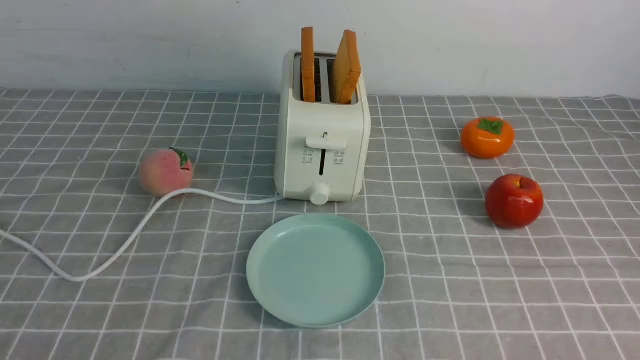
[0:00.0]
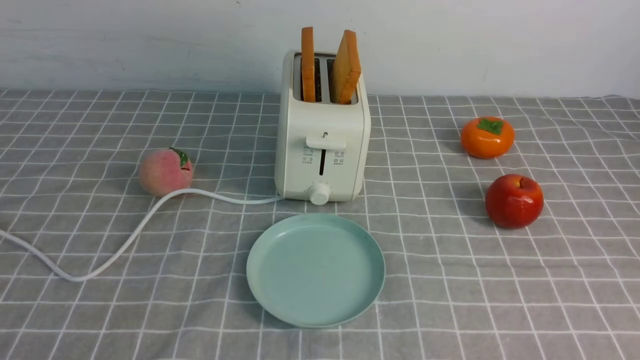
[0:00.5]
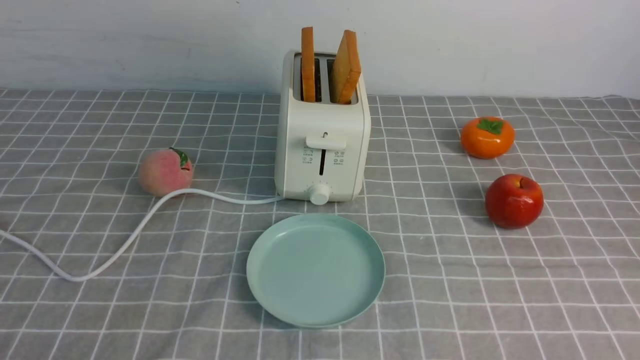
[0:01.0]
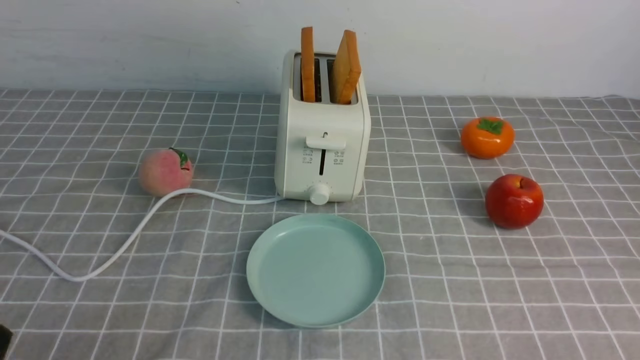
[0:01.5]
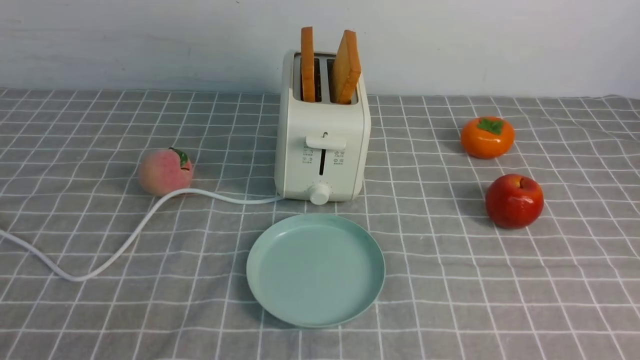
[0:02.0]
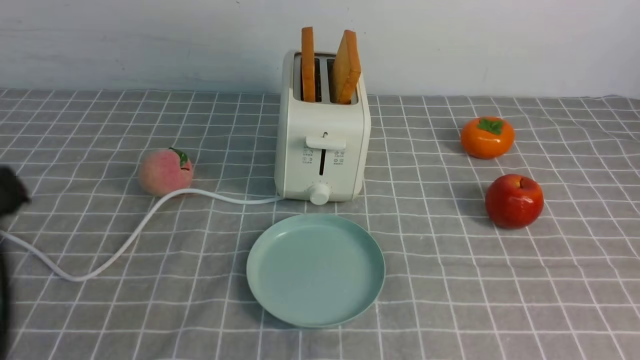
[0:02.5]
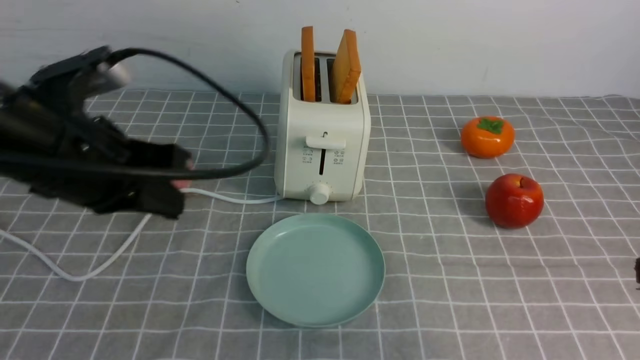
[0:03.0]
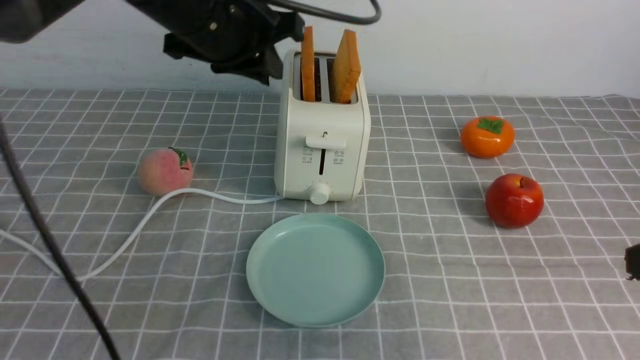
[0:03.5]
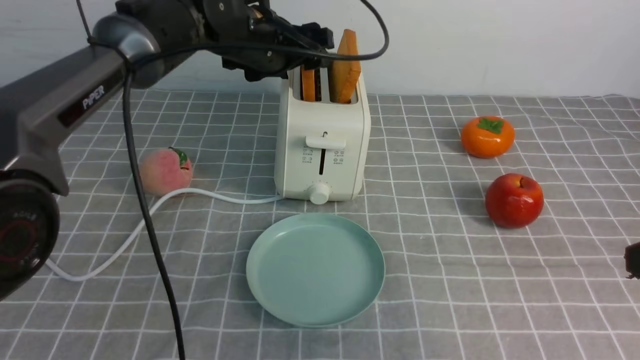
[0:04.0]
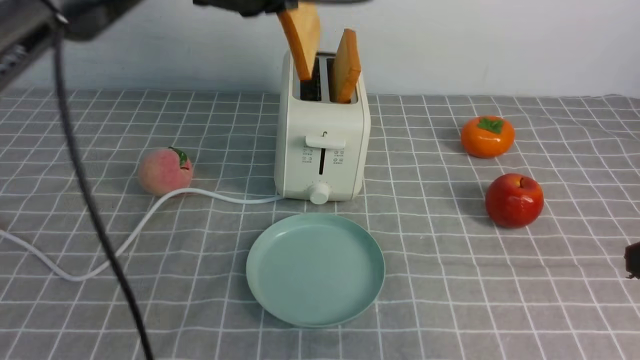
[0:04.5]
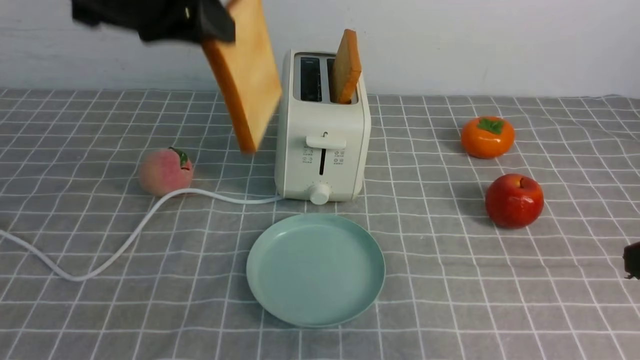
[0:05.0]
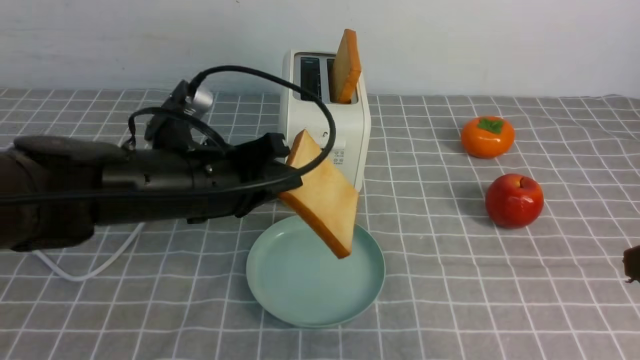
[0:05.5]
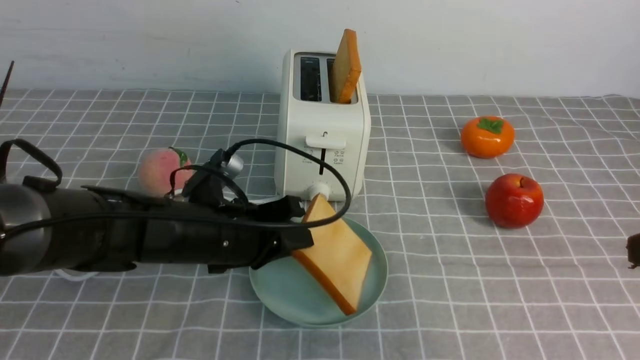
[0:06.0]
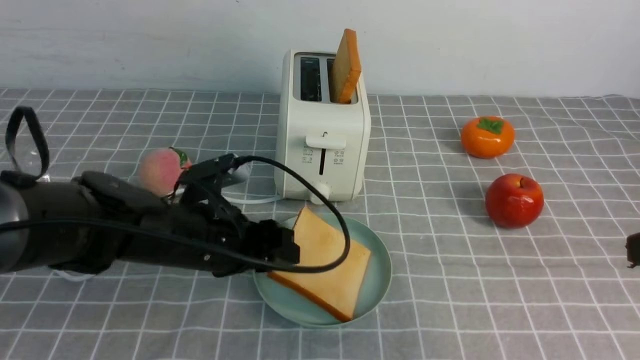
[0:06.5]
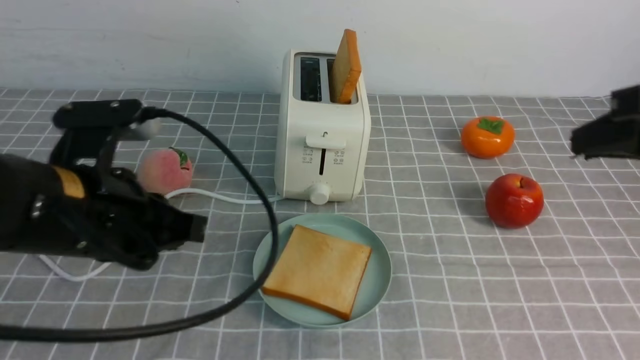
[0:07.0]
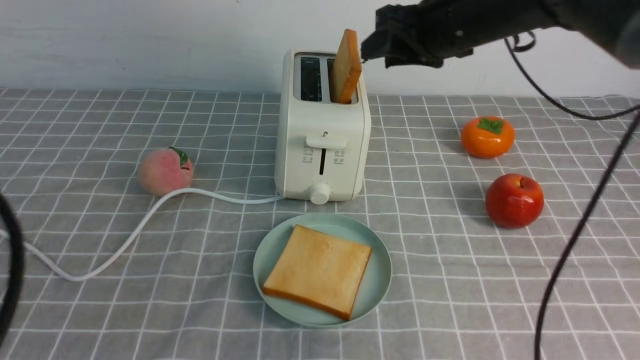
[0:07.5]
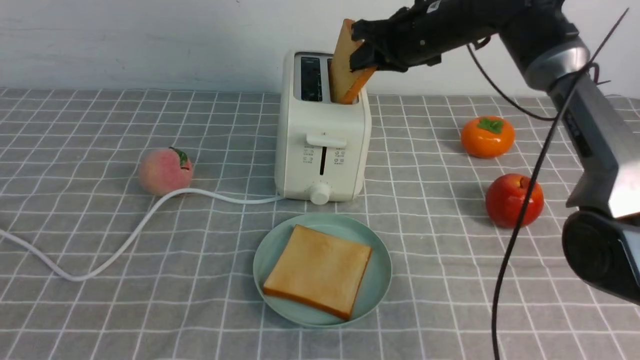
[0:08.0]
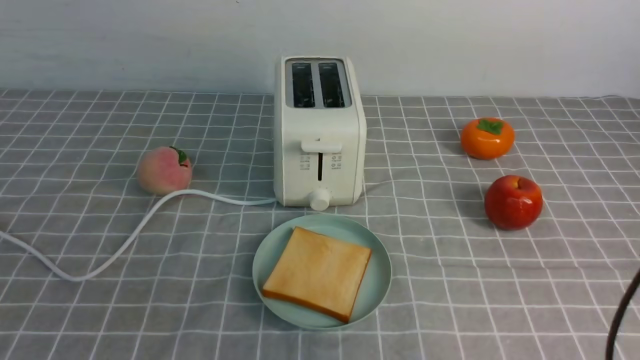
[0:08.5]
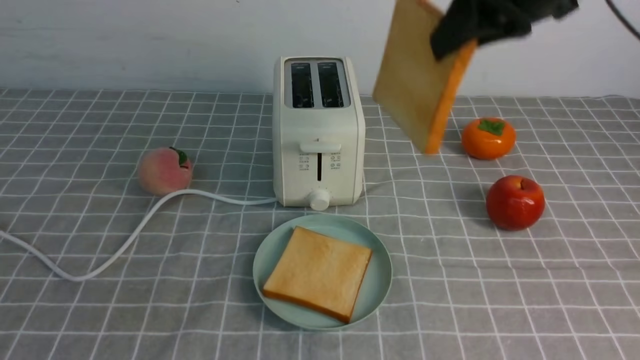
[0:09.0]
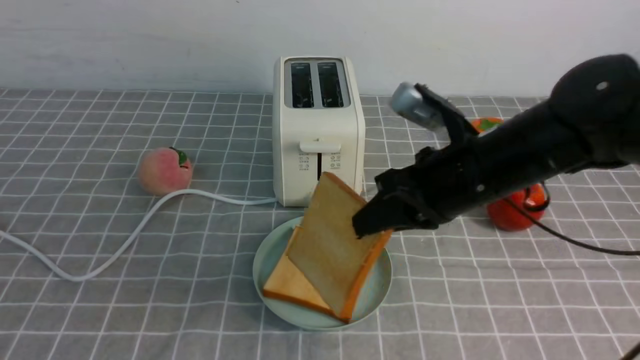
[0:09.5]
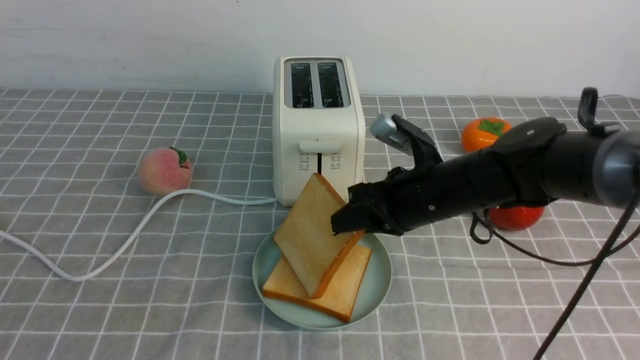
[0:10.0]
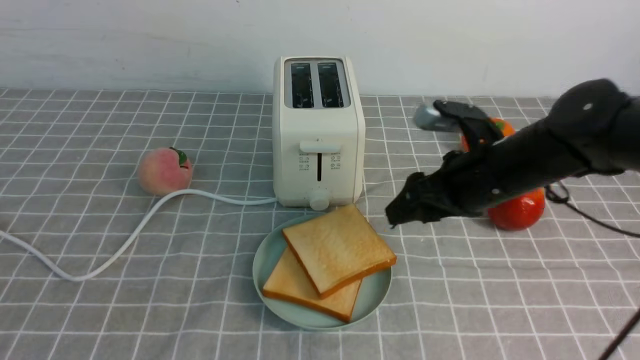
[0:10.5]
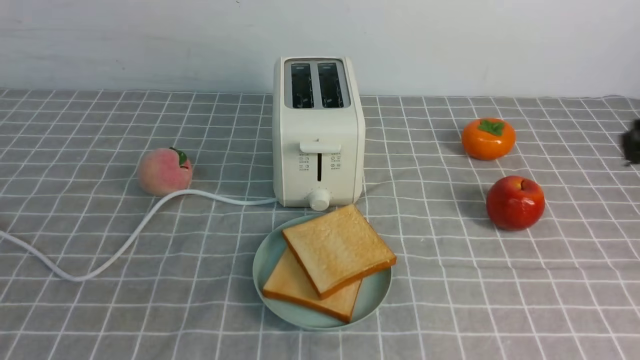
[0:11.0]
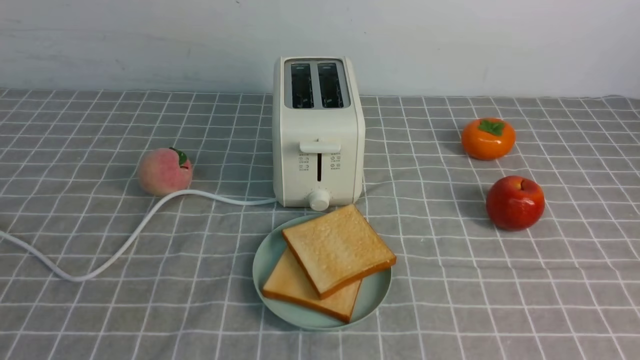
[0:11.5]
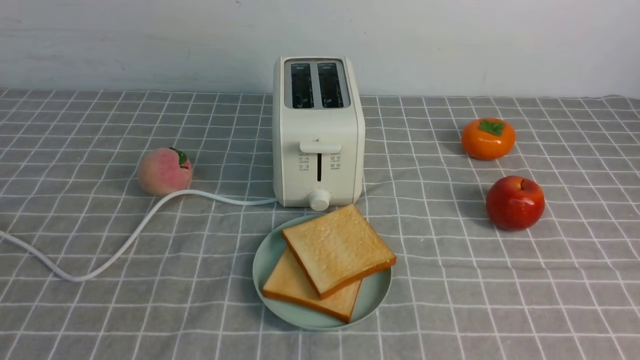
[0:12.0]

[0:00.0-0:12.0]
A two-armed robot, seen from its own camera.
Task of the whole recording: take toasted bread from bread machine on grey coffee table place on plate.
Step, 0:00.0 to 0:04.5: use the left arm to take out a slice of bread.
Step, 0:05.0 to 0:06.5: use the left arm to put a slice of bread into the empty plate.
Step, 0:07.0 to 0:08.0: use the right arm to take out a slice of bread.
Step, 0:08.5 to 0:10.0: use the right arm to put a slice of bread into the plate.
0:02.0 to 0:04.0: The right gripper travels upward and forward by some 15 cm, and closes up, while the left gripper is displaced forward and to the right by about 50 cm, and opens up.
0:04.0 to 0:06.0: The left gripper travels backward and downward by roughly 20 cm, and closes up.
0:06.0 to 0:08.0: The right gripper moves forward and to the left, roughly 40 cm, and opens; the left gripper goes some 35 cm backward, upward and to the left, and opens and closes again.
0:08.0 to 0:10.0: The right gripper heads backward and downward, covering about 20 cm.
0:10.0 to 0:12.0: The right gripper travels backward and to the right by about 35 cm, and opens, then closes once more.

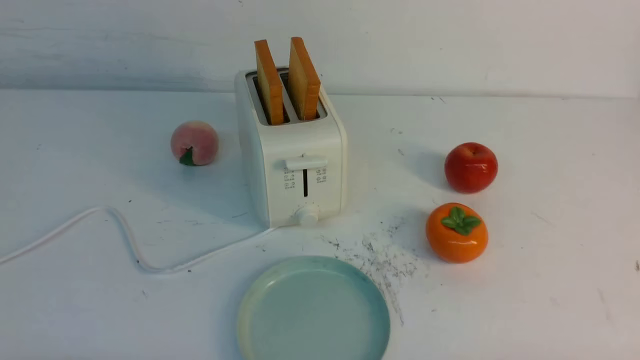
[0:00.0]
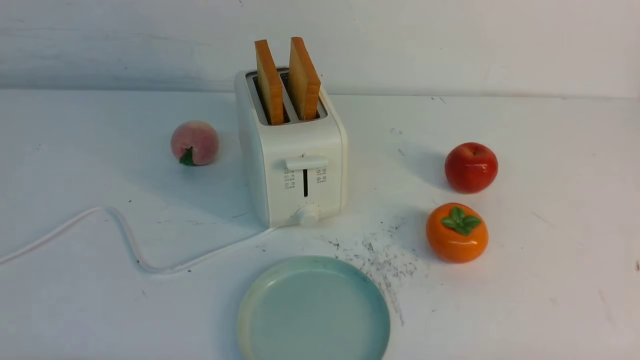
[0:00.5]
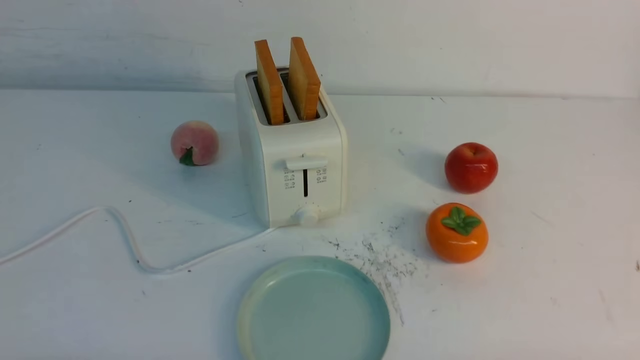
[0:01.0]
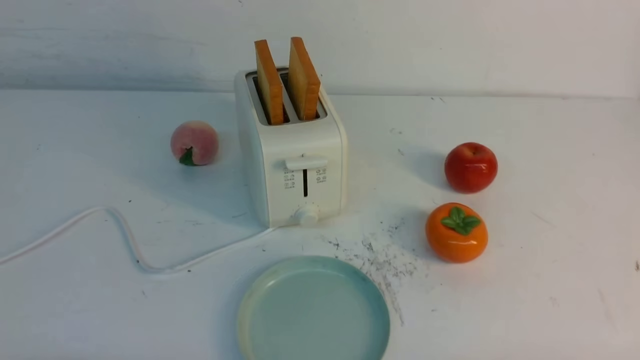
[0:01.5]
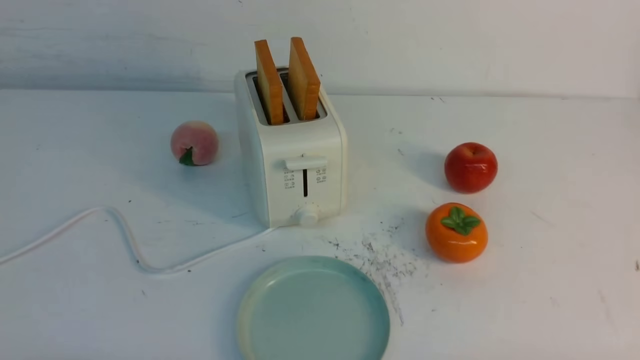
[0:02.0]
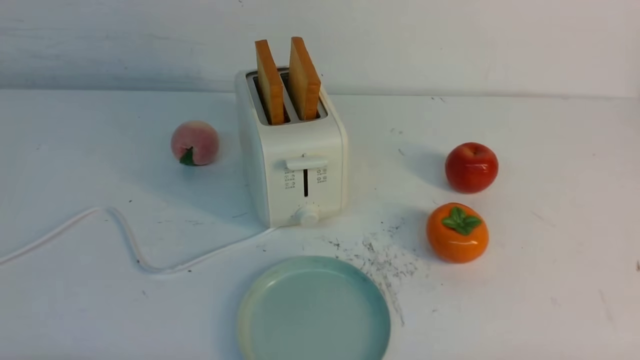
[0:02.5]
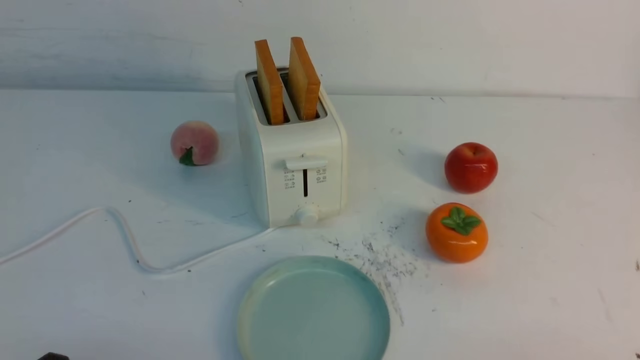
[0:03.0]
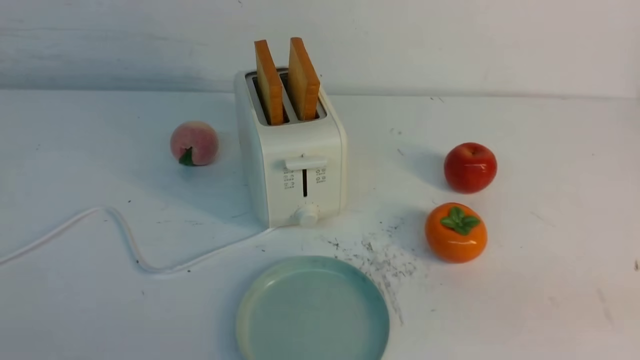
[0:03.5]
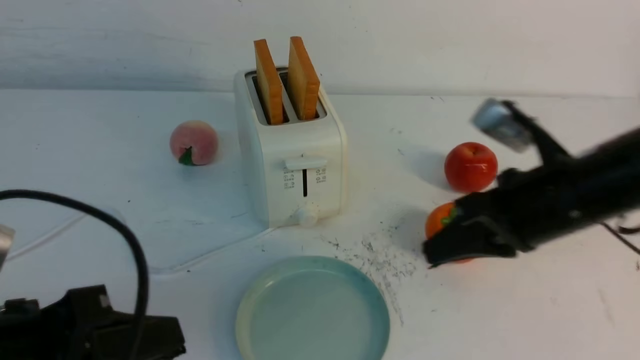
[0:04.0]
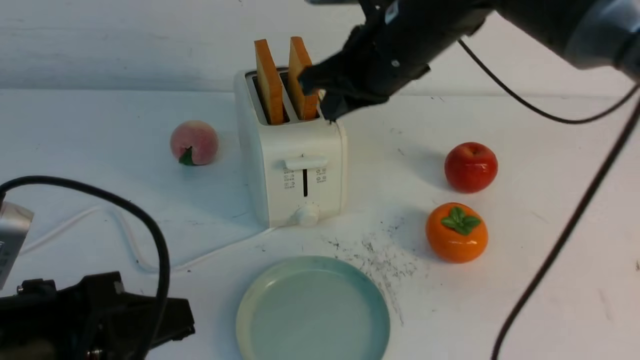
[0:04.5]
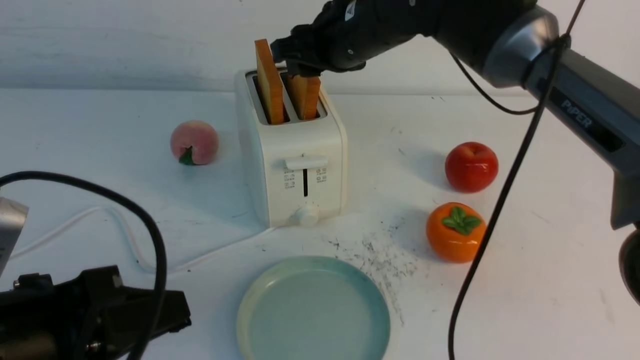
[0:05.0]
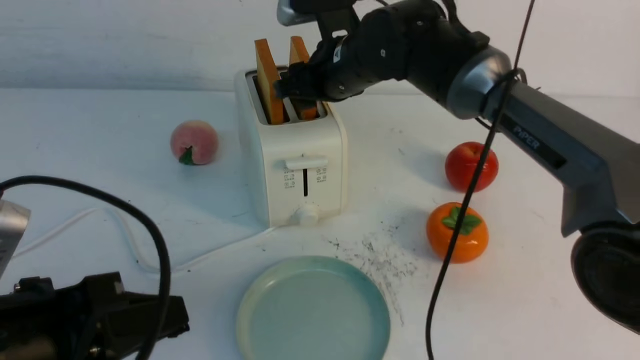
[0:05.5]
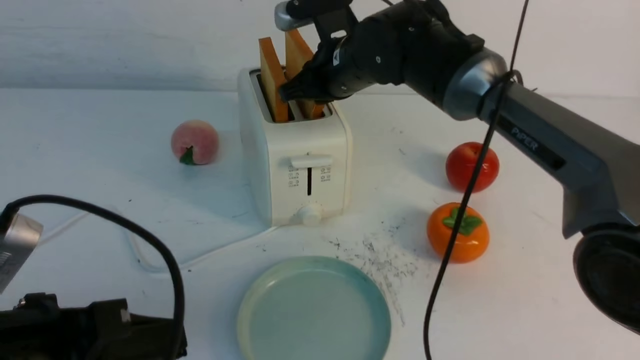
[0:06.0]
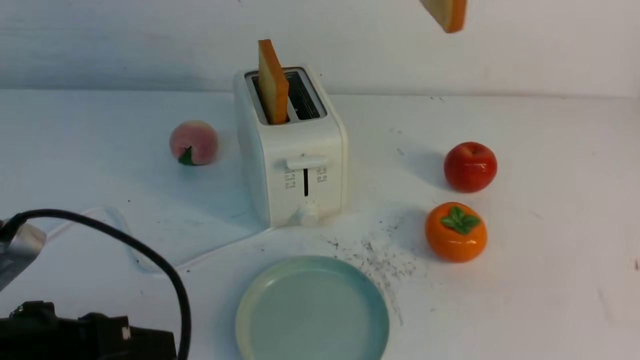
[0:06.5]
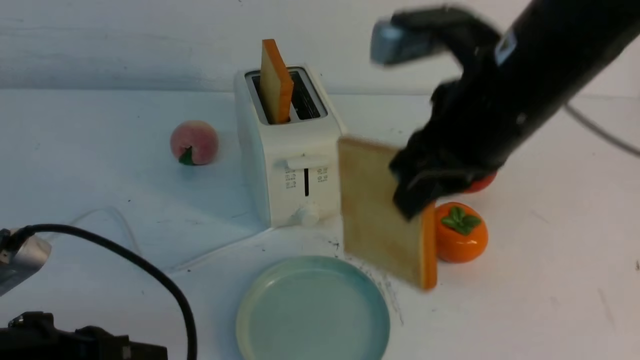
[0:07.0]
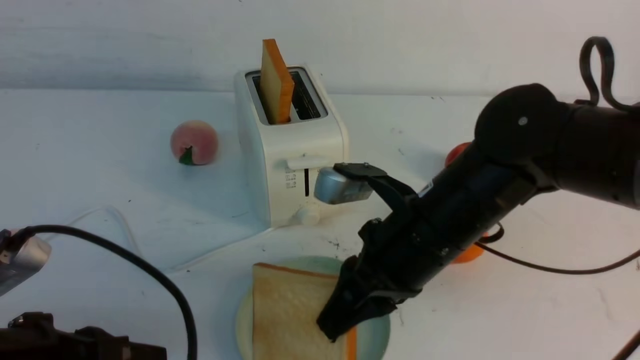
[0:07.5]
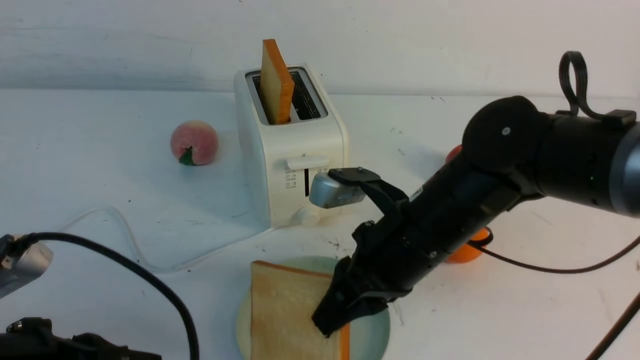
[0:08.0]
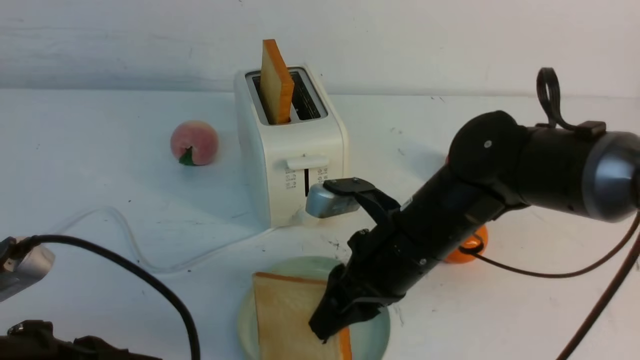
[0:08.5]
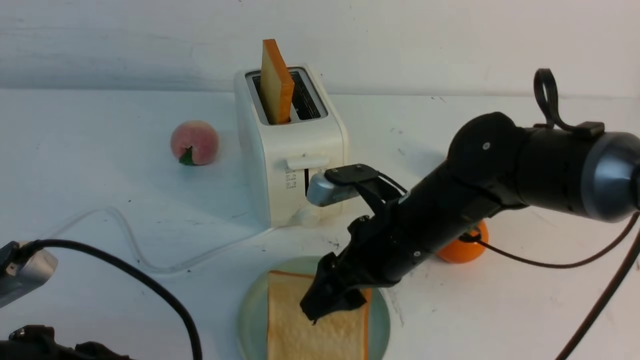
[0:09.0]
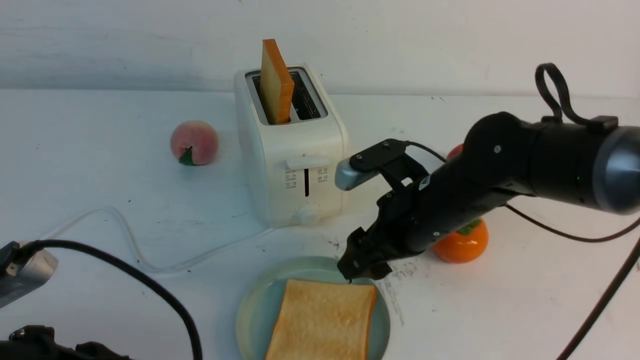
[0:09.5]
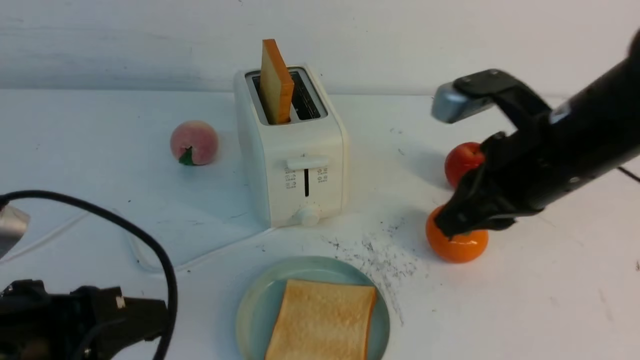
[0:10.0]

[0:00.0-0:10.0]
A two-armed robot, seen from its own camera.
Task of the whole recording: take toasted bread from bread machine on white table place on plate.
Step, 0:00.0 to 0:06.0: use the right arm to take out a slice of bread.
Step, 0:06.5 to 0:09.5: use the right arm to put a slice of bread into the plate.
0:00.0 to 0:02.0: Both grippers stay put.
0:02.0 to 0:04.0: The left gripper moves upward, to the right and forward, roughly 15 cm, and closes; the right gripper heads forward, upward and to the left, covering about 30 cm, and closes its fingers.
0:04.0 to 0:06.0: The right gripper travels forward and to the left by roughly 20 cm, and opens, then closes again.
0:06.0 to 0:08.0: The right gripper goes approximately 20 cm backward and downward.
0:08.0 to 0:10.0: The right gripper shifts about 15 cm to the right and upward, and opens, then closes again.
